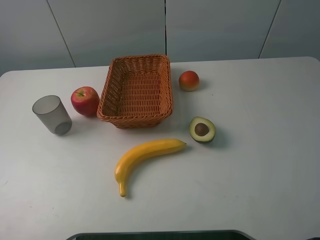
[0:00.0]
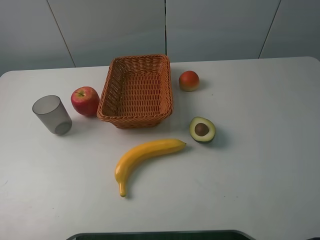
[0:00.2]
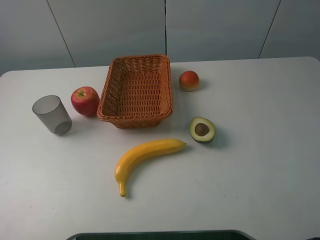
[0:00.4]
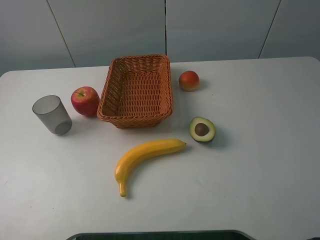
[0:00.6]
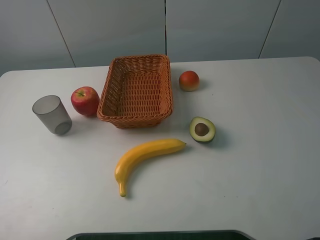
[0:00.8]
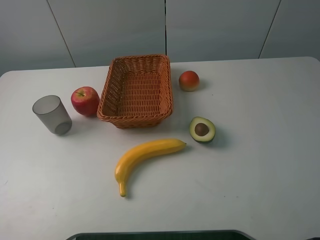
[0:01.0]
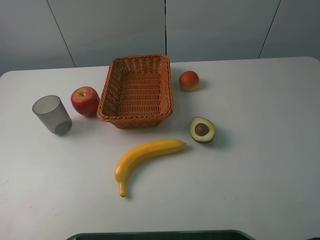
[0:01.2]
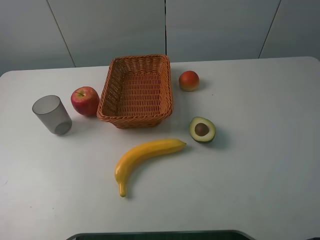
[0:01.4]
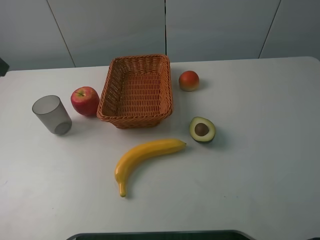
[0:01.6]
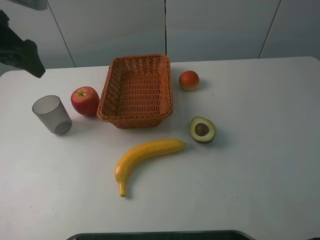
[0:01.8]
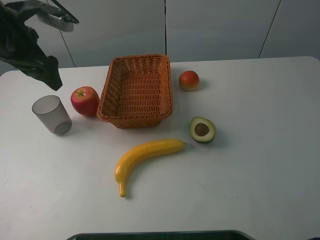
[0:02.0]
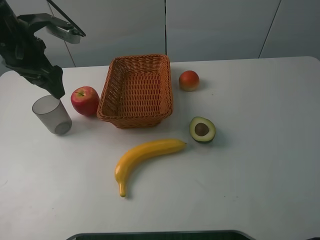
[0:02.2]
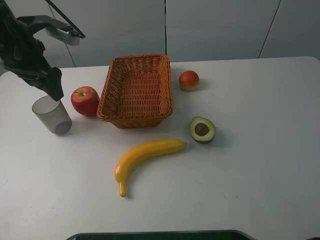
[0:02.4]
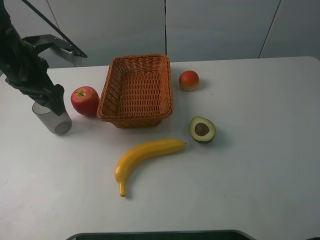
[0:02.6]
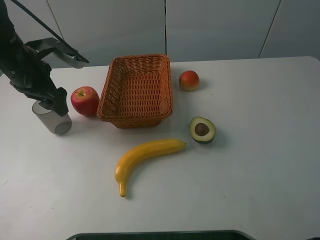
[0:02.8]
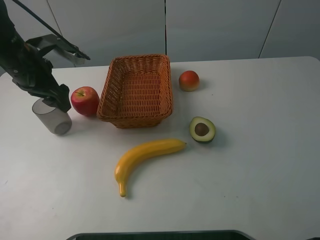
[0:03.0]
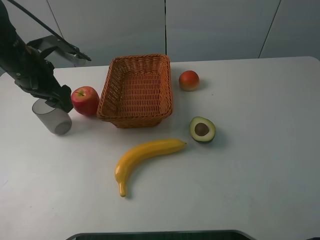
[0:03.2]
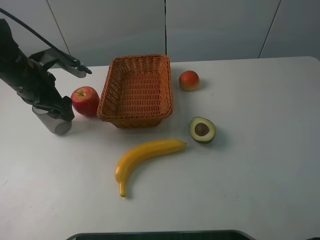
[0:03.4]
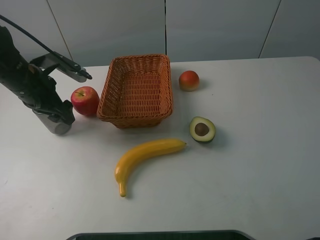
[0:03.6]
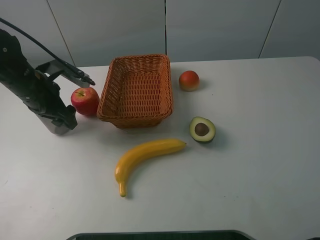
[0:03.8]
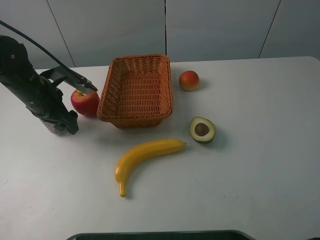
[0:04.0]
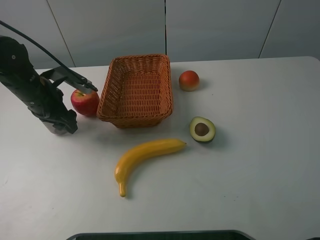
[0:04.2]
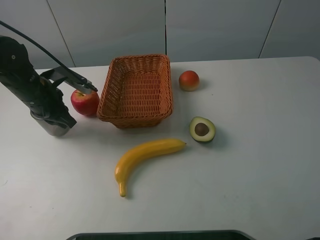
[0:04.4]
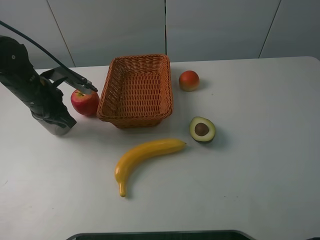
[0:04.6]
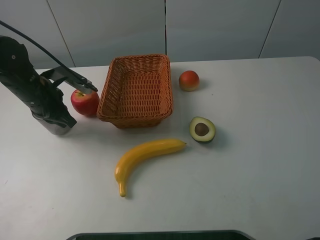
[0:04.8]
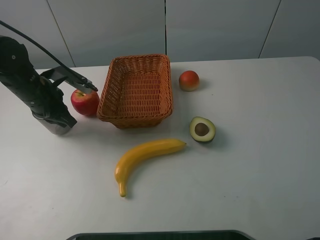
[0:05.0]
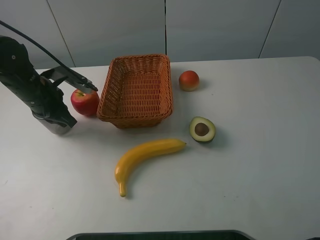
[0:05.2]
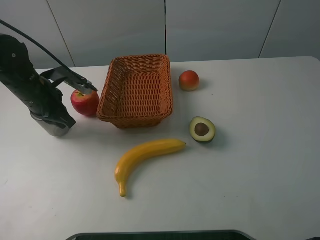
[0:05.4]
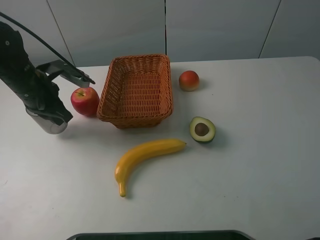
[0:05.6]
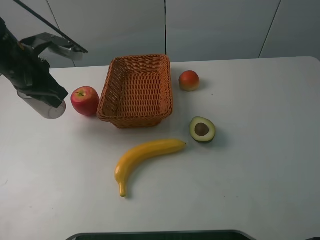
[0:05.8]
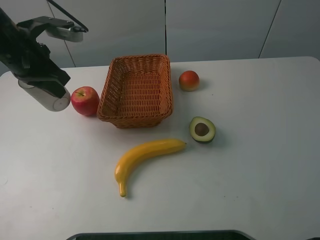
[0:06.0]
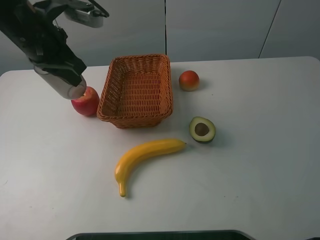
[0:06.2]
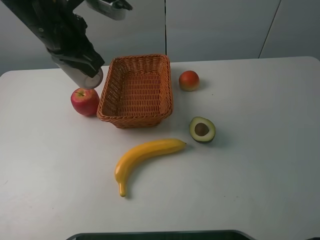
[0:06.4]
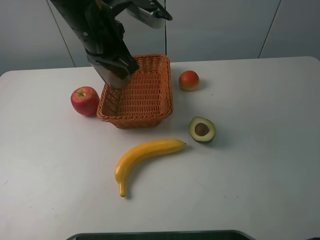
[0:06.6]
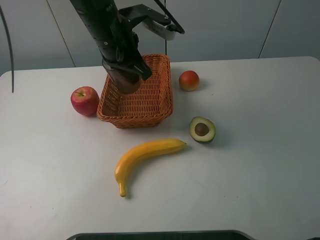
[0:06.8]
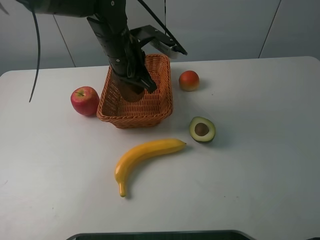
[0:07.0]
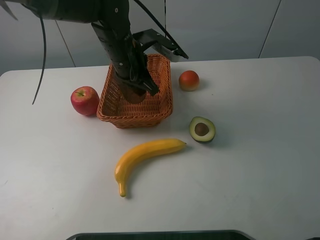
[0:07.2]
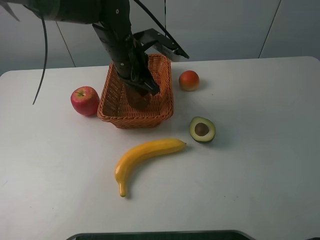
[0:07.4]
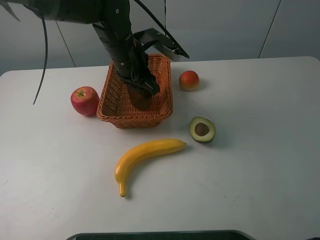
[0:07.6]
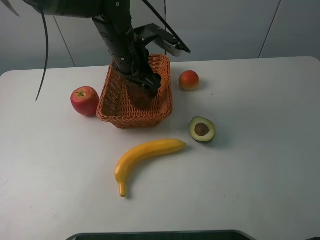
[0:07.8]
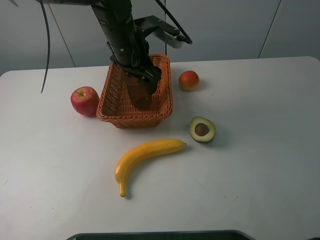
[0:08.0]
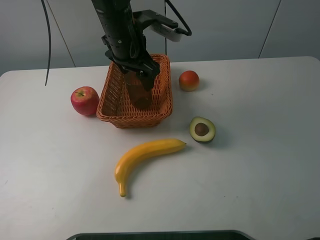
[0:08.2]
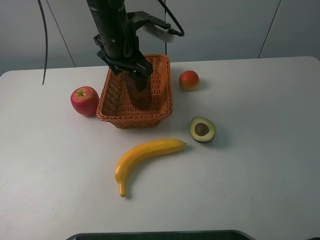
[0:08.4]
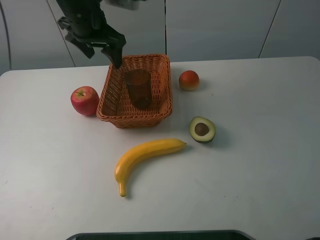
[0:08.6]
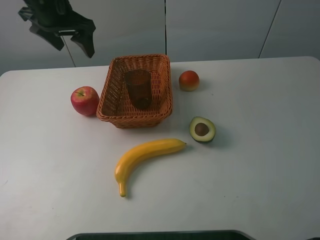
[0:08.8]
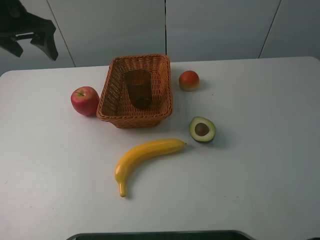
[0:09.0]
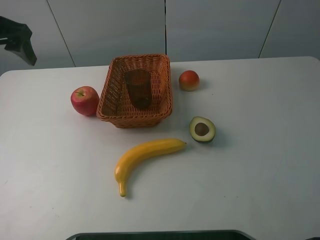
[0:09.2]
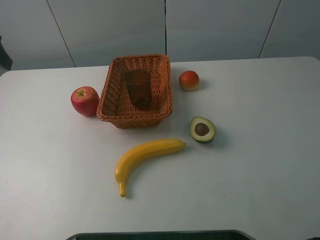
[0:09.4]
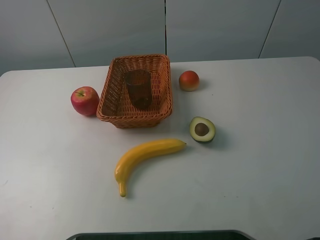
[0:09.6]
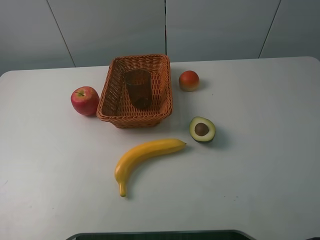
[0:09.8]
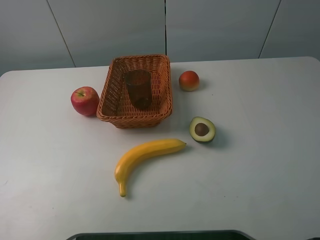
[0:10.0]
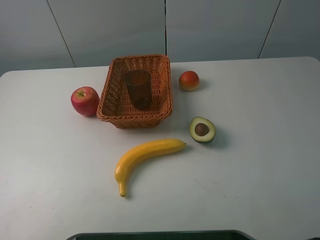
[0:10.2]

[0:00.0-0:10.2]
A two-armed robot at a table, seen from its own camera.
0:01.4 to 0:03.0: The left gripper goes about 20 cm forward and downward.
0:03.0 to 0:04.4: The left gripper is displaced downward by some 5 cm, and closes.
0:04.4 to 0:05.8: The left gripper heads upward, covering some 10 cm.
0:05.8 to 0:07.2: The left gripper heads to the right, covering some 20 cm.
0:07.2 to 0:08.8: The left gripper travels to the left and upward by some 20 cm, and opens its fingers.
0:08.8 to 0:10.2: The left gripper heads backward, covering roughly 35 cm.

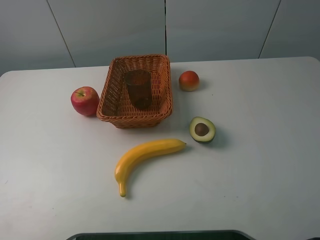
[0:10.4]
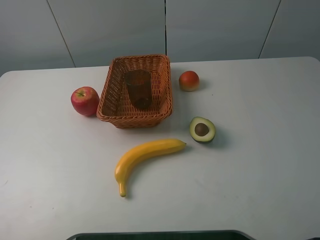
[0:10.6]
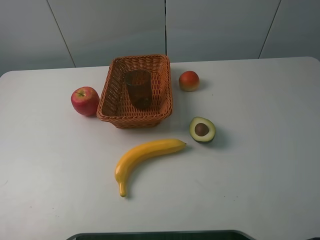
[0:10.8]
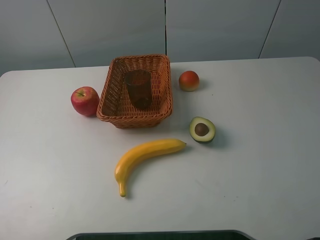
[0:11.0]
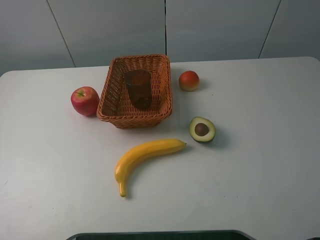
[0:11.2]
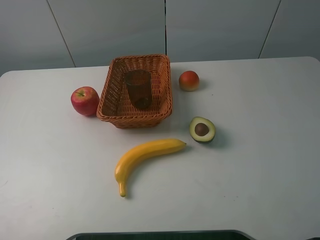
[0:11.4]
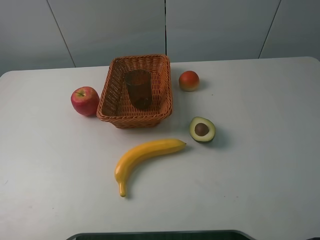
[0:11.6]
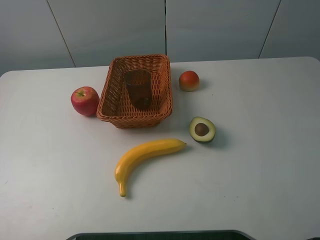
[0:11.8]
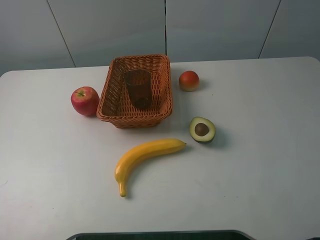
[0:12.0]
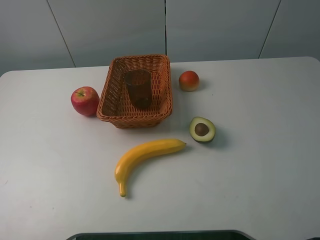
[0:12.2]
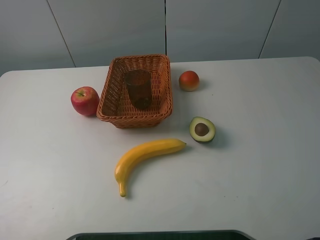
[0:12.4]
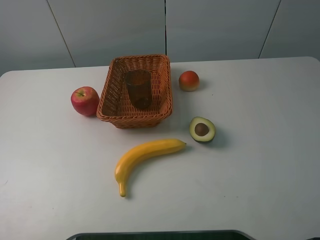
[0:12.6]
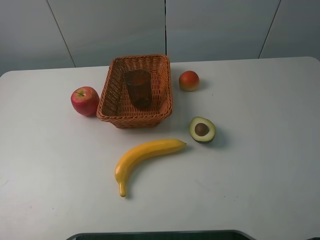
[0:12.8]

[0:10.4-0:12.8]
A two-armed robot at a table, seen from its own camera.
0:11.6 to 0:12.8: Both grippers stay put.

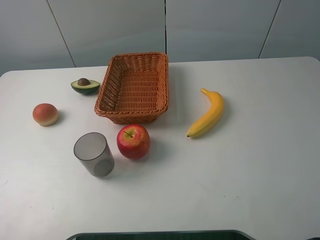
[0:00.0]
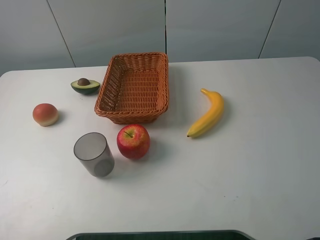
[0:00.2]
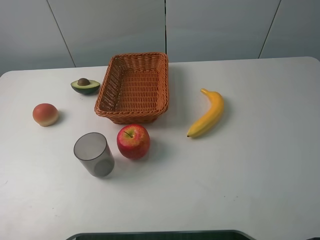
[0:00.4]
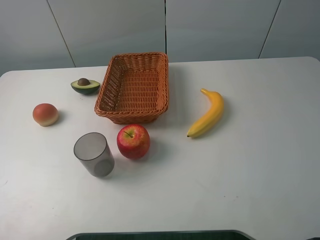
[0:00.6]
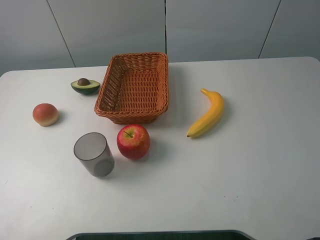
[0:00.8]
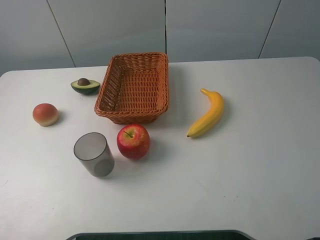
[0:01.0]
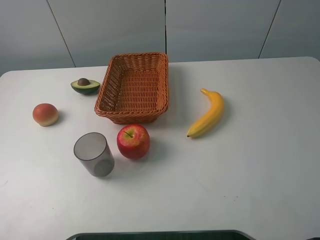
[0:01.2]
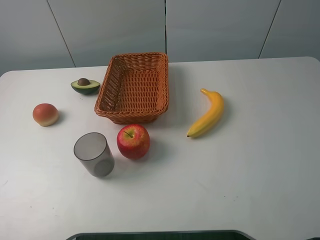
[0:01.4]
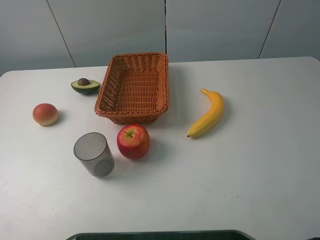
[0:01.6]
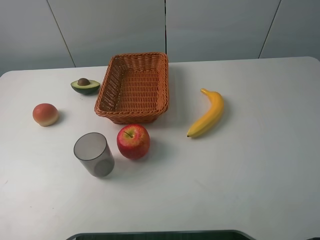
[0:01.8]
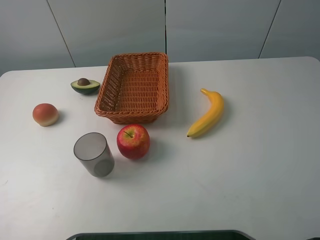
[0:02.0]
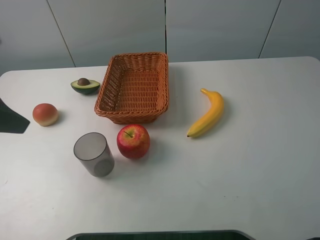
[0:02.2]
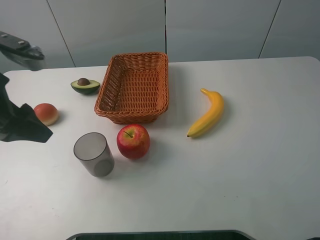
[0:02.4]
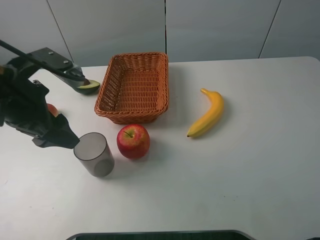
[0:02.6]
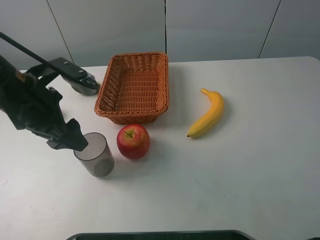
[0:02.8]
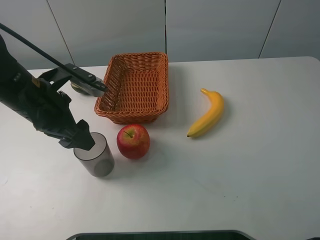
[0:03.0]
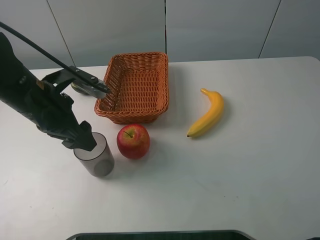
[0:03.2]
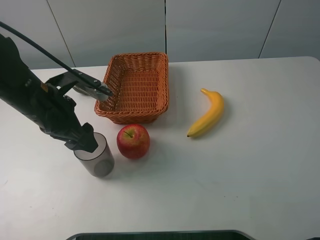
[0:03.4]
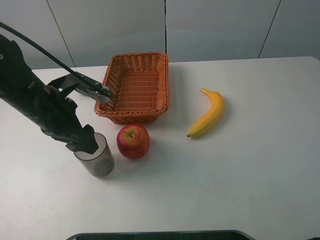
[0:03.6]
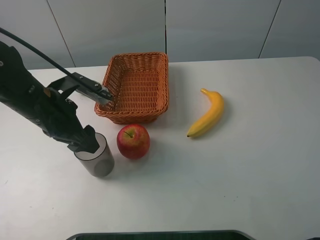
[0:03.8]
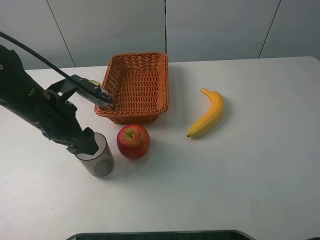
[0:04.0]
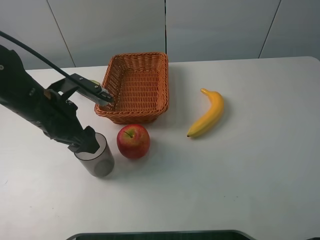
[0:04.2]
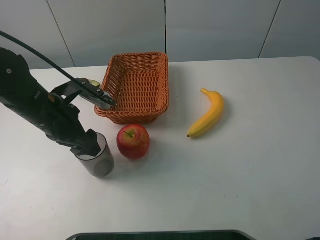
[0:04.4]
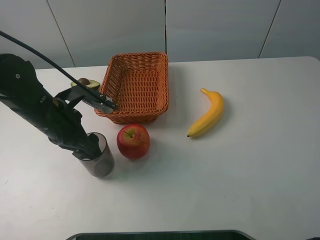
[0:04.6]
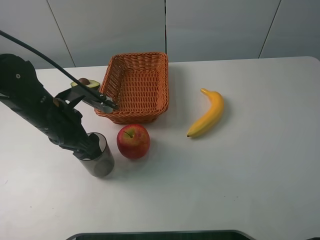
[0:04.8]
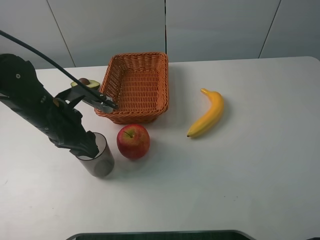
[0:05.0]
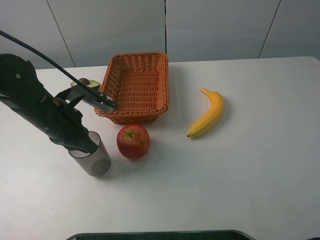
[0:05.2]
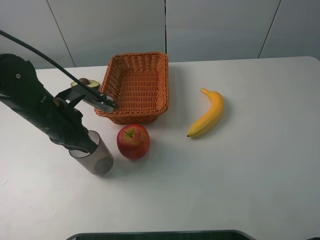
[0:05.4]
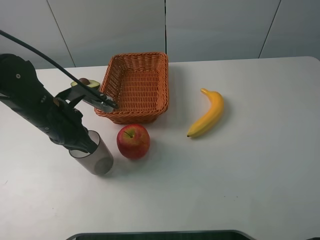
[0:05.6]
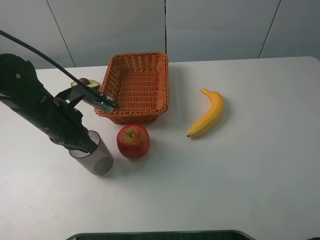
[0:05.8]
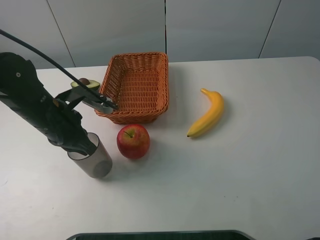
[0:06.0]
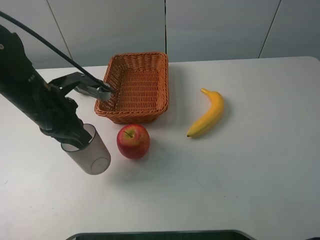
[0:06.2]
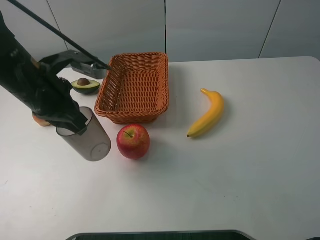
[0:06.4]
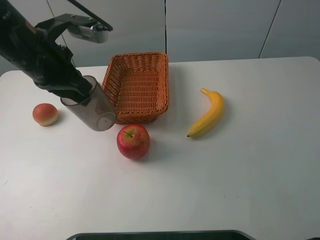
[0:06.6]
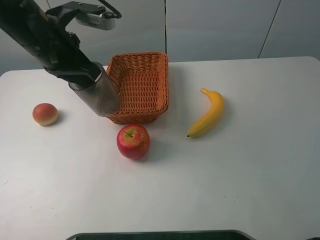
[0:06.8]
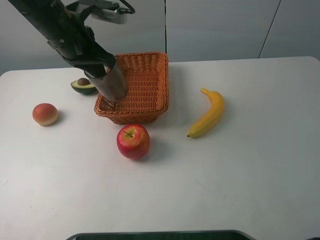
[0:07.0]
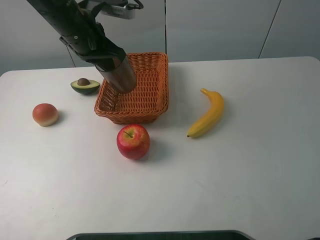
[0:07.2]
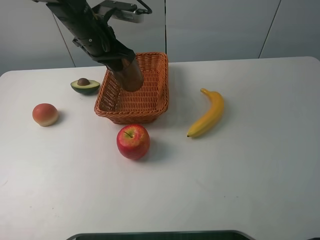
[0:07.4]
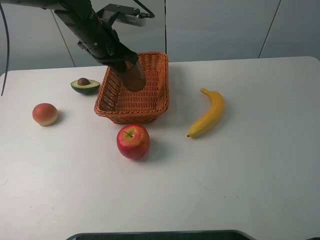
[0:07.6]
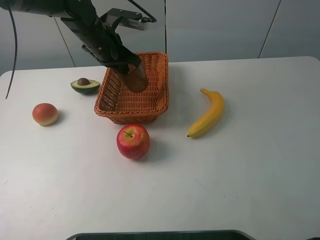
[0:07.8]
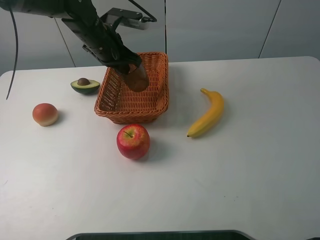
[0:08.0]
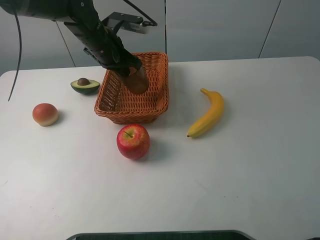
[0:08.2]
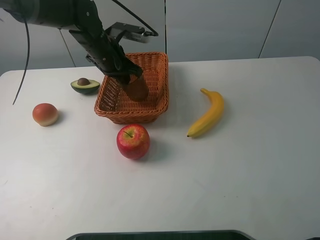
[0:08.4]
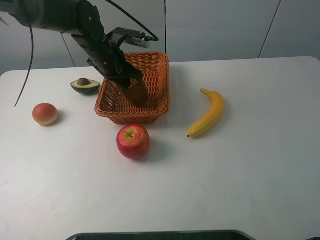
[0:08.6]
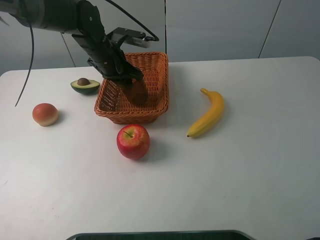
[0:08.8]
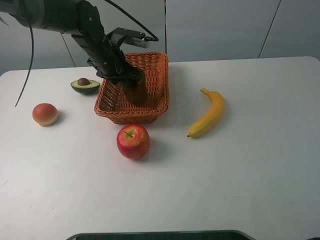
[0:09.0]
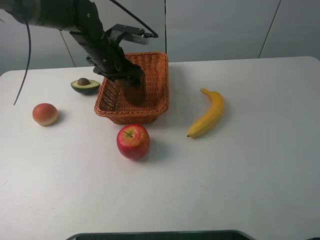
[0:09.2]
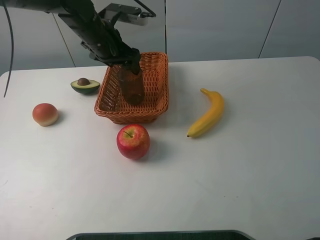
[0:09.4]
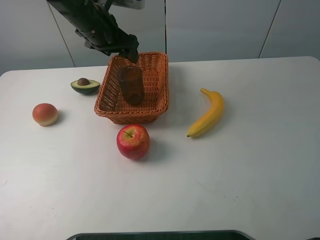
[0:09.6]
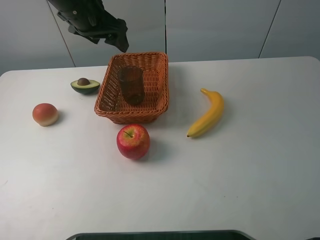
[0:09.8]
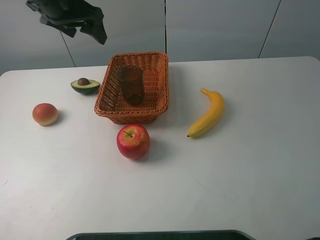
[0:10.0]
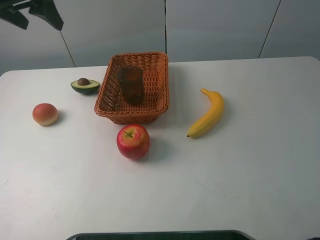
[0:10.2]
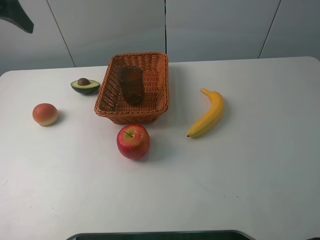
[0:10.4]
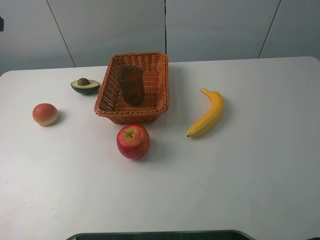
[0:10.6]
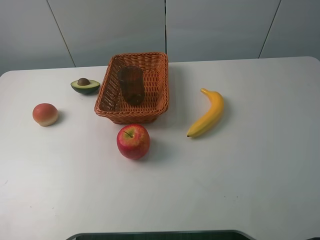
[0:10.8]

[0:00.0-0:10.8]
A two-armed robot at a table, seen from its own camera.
0:01.6 to 0:03.0: The left gripper moves forward, to the right and downward, some 25 cm.
0:03.0 to 0:04.6: The grippers stay close to where they were, moving slightly.
0:04.6 to 0:06.2: The left gripper heads upward, covering about 5 cm, and closes its fingers.
0:06.2 to 0:07.8: The left gripper travels forward by roughly 15 cm.
0:07.8 to 0:09.2: The left gripper opens its fingers.
0:09.2 to 0:10.8: The left gripper travels backward, upward and to the left by approximately 35 cm.
